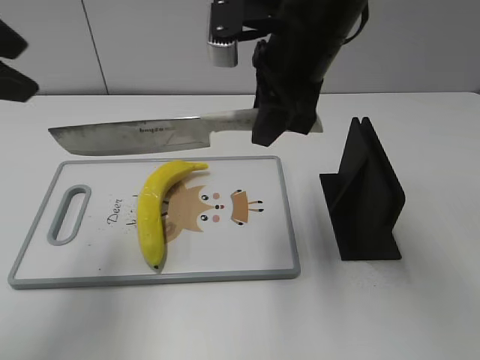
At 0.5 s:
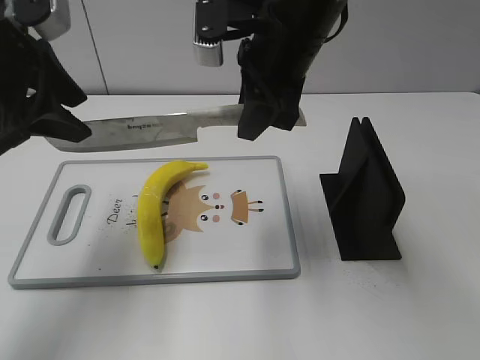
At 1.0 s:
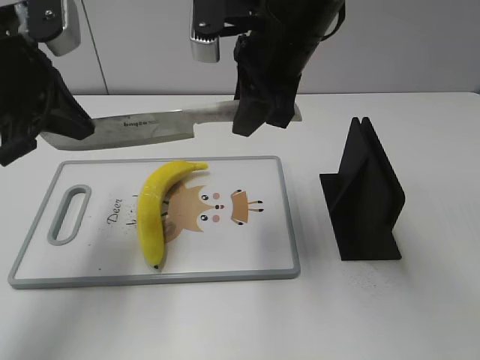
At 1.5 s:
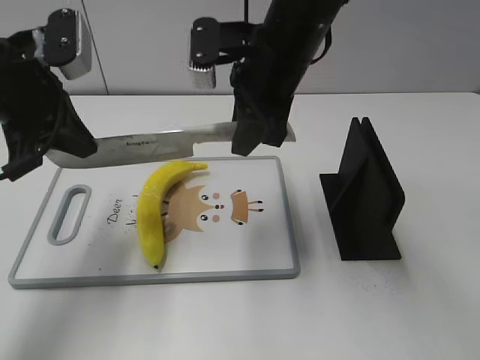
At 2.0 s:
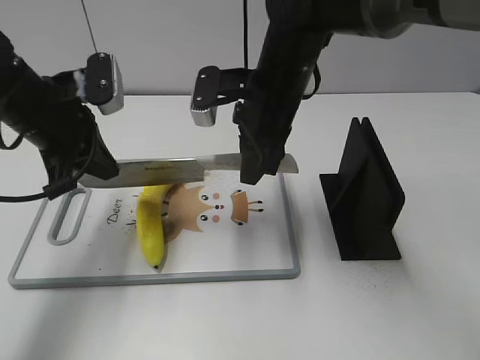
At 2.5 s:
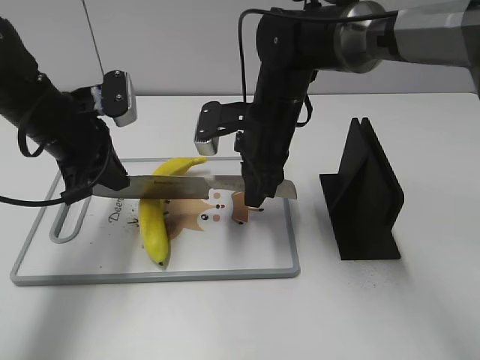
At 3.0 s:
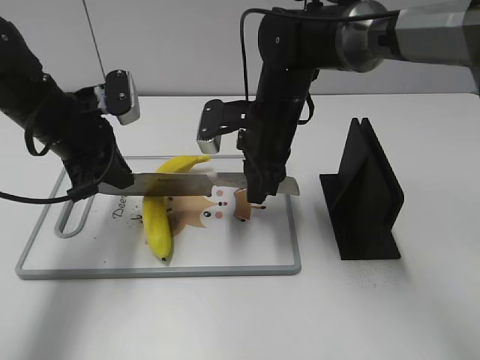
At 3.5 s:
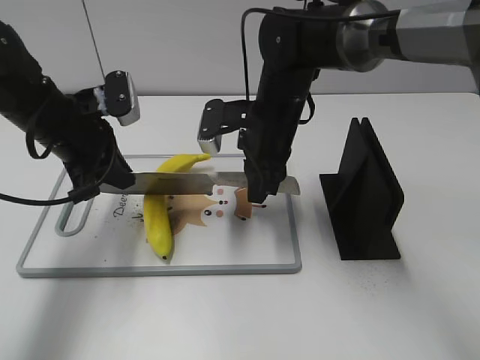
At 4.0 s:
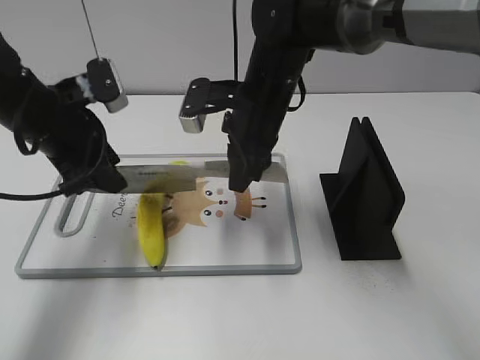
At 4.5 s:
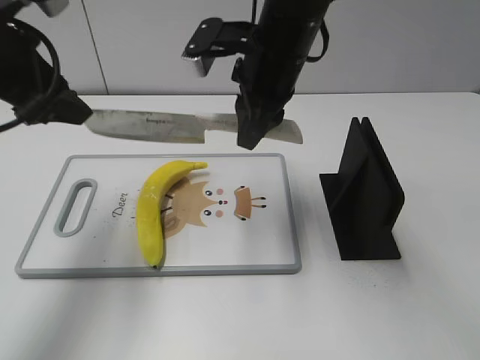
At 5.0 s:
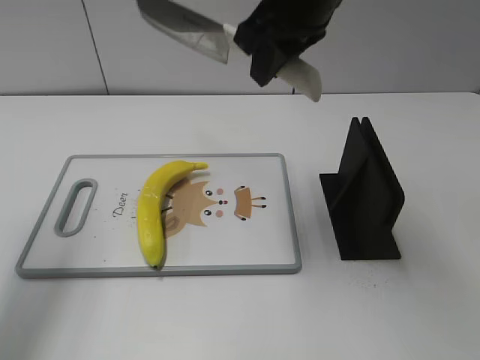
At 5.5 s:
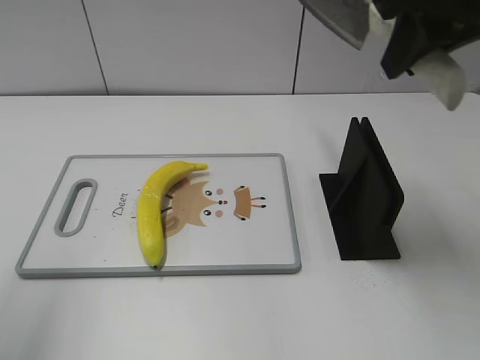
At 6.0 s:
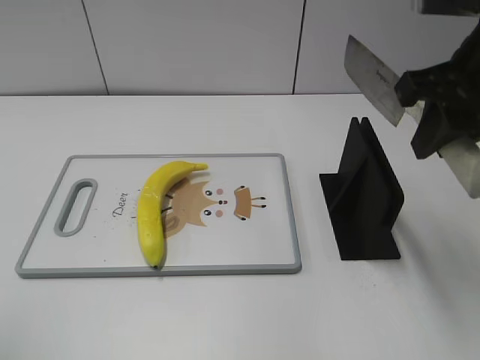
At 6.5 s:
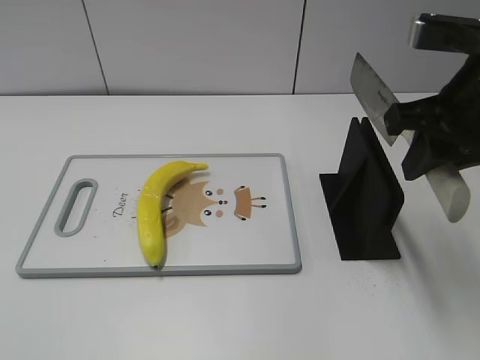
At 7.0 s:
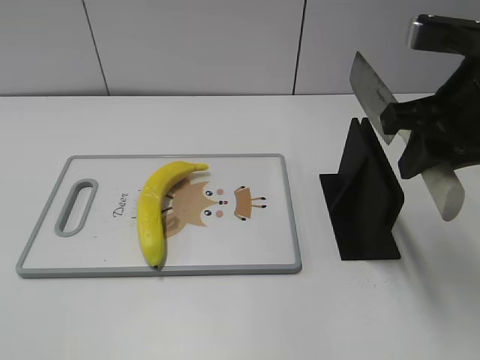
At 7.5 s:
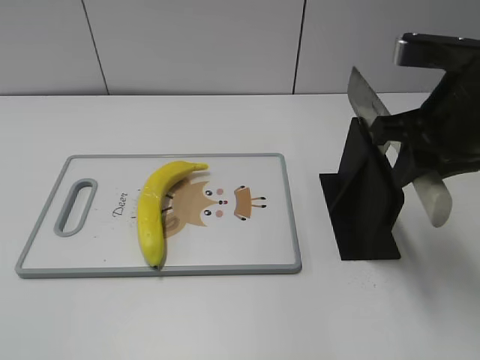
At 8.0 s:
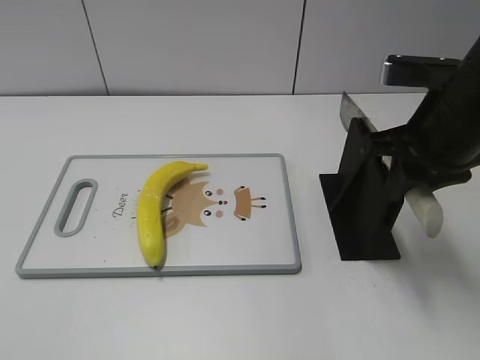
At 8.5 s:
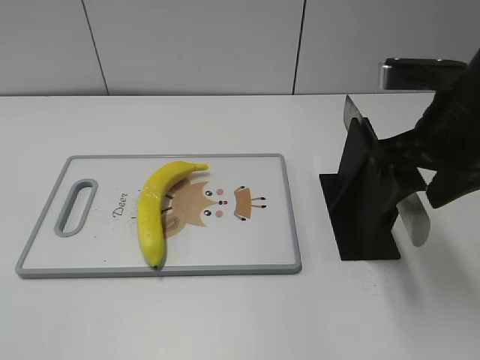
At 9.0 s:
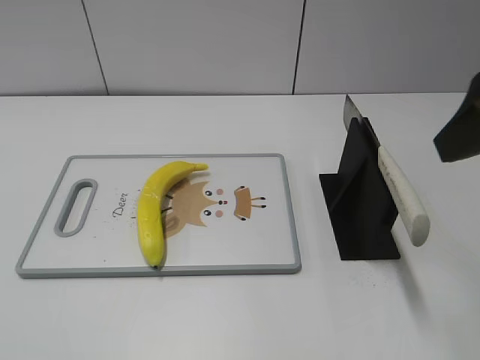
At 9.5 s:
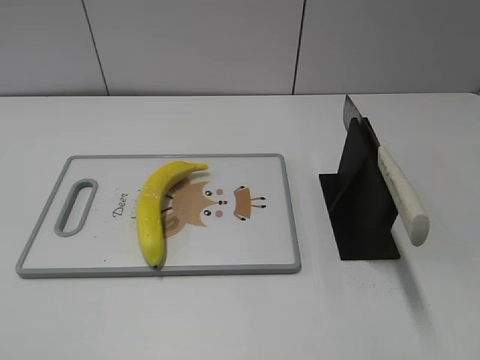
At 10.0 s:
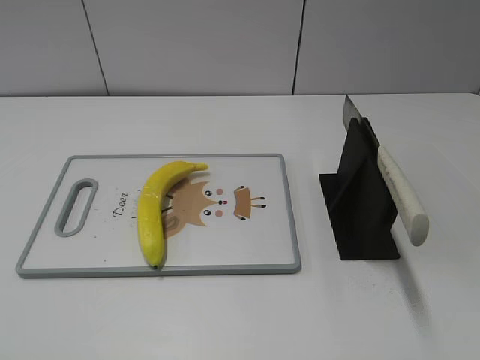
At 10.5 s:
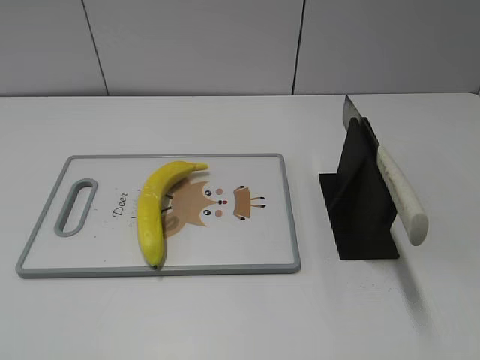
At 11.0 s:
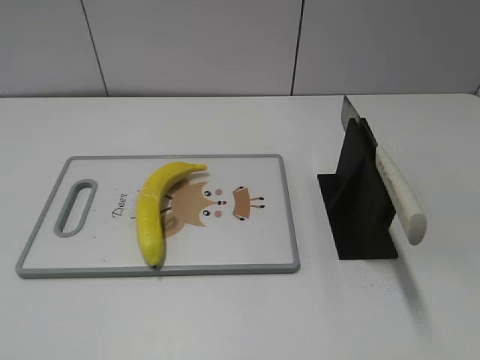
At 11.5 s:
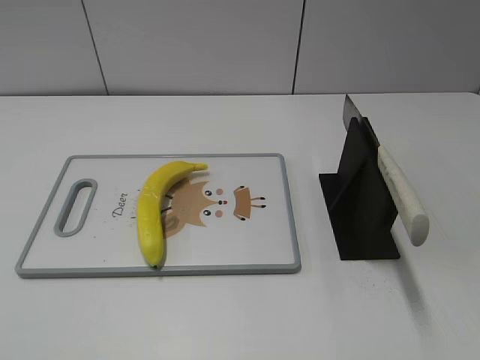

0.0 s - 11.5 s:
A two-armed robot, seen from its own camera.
Task of the whole recording: cut plastic banana.
Step, 0.0 s - 3.0 s: Lift the knife with your right hand.
Step, 3.5 s - 4.5 s: Cut the banana with your right hand.
Step, 5.0 s - 6.5 s: Lift the knife with your right hand.
Step, 7.5 s - 11.5 s: Place the knife on the storage rack with your right hand.
0.0 s - 2.0 s: The right gripper goes some 10 cm downward. Meanwhile the left gripper goes some 15 cm downward and forward, and closes its fingers.
2.0 s - 4.0 s: The left gripper opens its fingers.
4.0 s - 6.0 s: The left gripper moves backward, upward and to the left, approximately 35 cm, while the right gripper heads to the right, upward and backward, covering some 25 cm.
6.0 s - 7.5 s: The right gripper goes roughly 5 cm downward.
7.5 s - 9.5 s: The right gripper goes about 20 cm backward and upward, and opens up.
